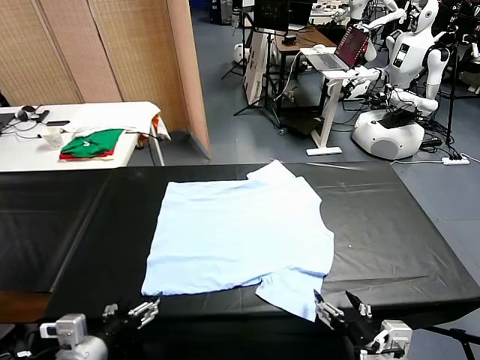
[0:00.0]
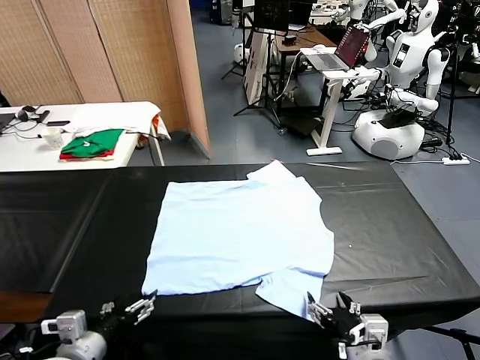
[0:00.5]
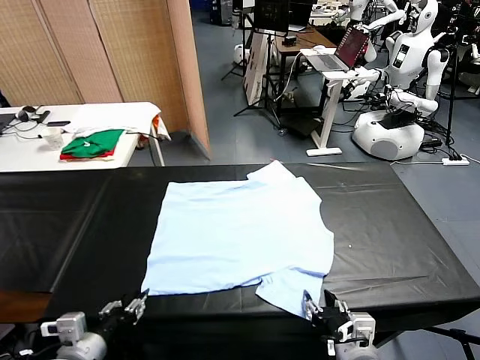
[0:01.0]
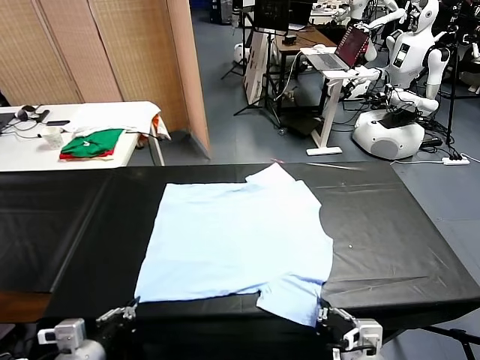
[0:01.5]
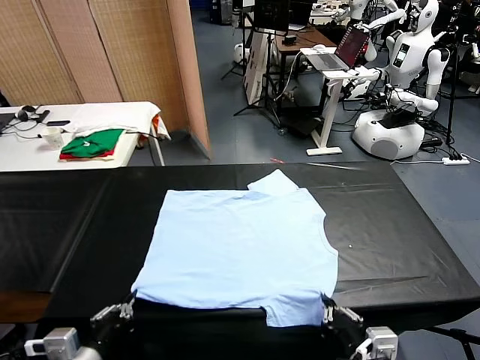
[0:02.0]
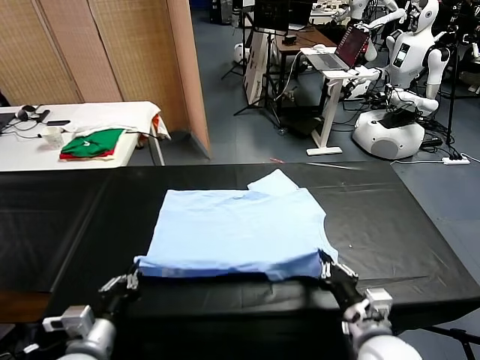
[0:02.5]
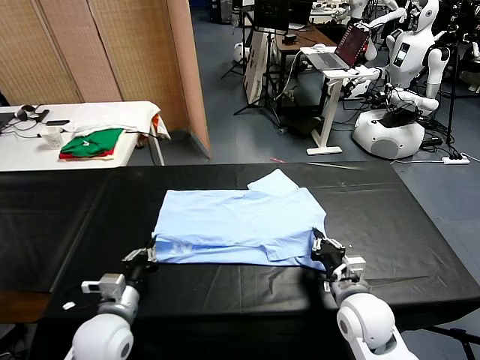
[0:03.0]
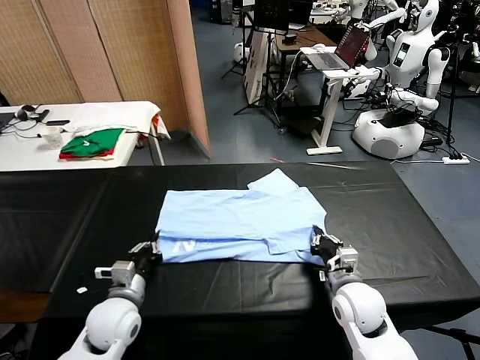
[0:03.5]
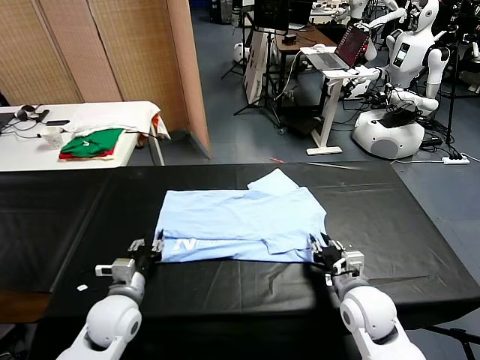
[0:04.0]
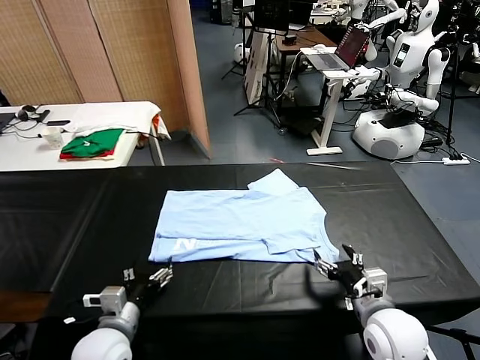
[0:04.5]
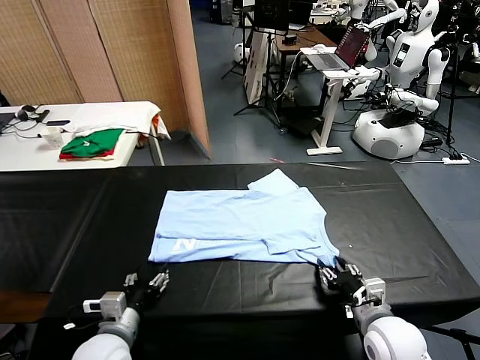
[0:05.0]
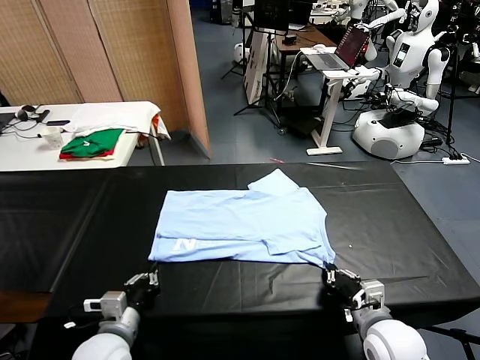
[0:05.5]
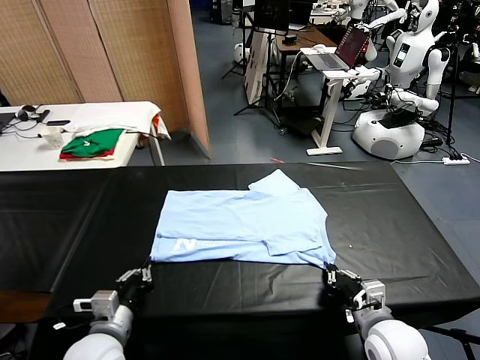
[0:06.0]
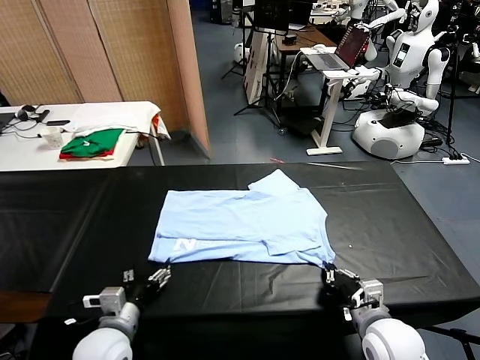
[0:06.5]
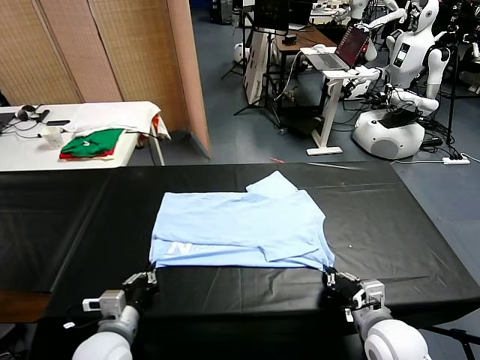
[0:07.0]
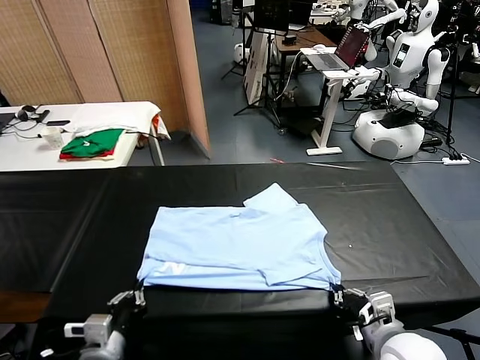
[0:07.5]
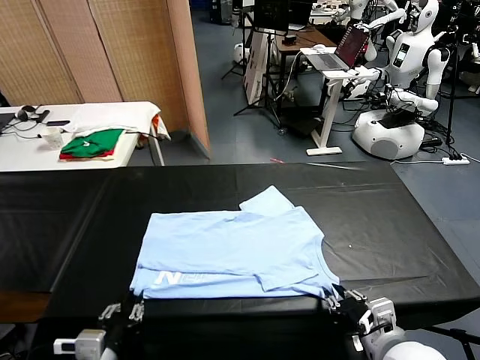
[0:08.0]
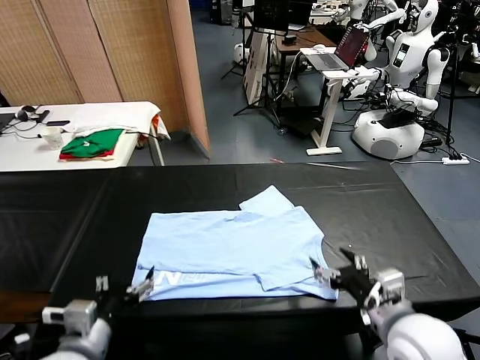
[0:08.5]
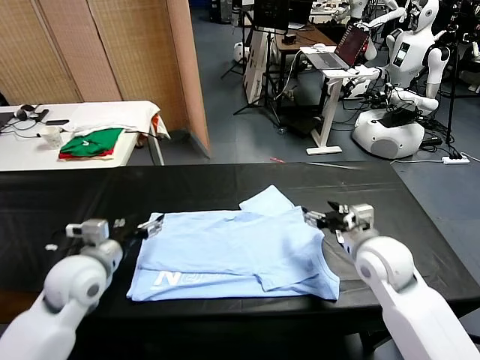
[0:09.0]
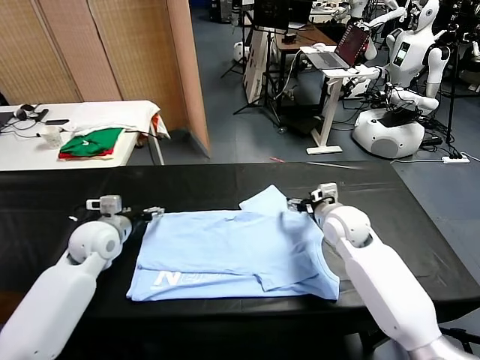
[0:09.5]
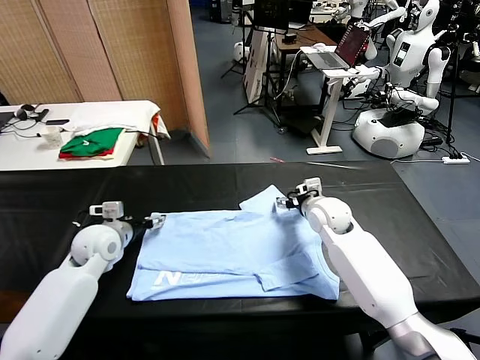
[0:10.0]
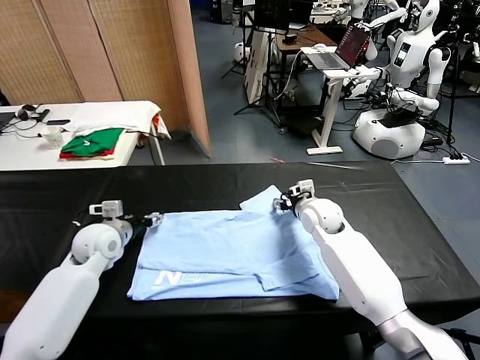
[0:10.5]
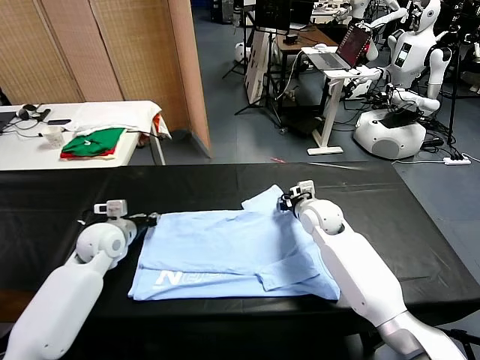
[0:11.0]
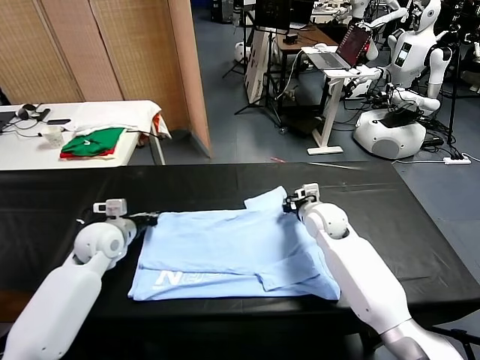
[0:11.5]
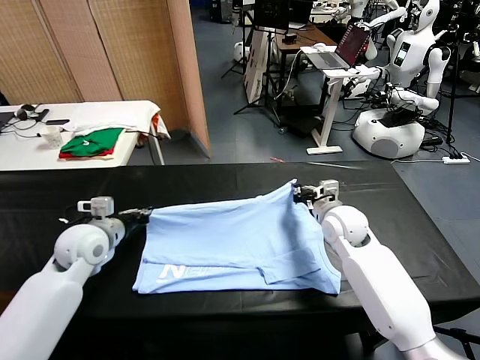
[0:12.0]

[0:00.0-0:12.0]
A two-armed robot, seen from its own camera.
Task of the whole recording: fold and organize the clothes.
Step, 0:00.0 to 0:01.0: use both grippers simultaneously to clamp the lower edge of the clothing fabric.
Step, 0:01.5 to 0:04.0: use both grippers to drag the lower edge of the fabric forward and fold it over the upper edge.
Step, 0:04.5 to 0:08.0: Drag the clothes downward with both gripper.
Step, 0:08.5 to 0:11.0: use both grippers simultaneously to clamp the upper edge of the clothing fabric.
0:02.0 to 0:04.0: The left gripper is displaced forward and downward by some 15 cm, and opens its fingers, while the right gripper moves approximately 10 cm forward and comes back, and opens.
0:04.0 to 0:06.0: The left gripper heads backward, covering roughly 5 cm, and closes. The right gripper closes its fingers.
0:06.0 to 0:08.0: The left gripper shifts approximately 10 cm backward, and opens its fingers. Meanwhile the right gripper travels upward by approximately 10 cm, and opens up.
0:08.0 to 0:10.0: Both grippers travel together forward, approximately 30 cm. The left gripper opens up.
0:10.0 to 0:12.0: The left gripper shifts by roughly 5 cm, and closes up, while the right gripper goes some 10 cm backward, to the right and upward, and closes its fingers.

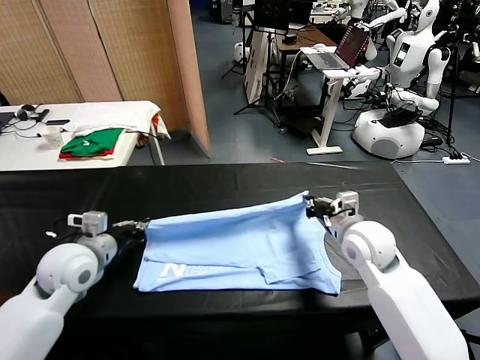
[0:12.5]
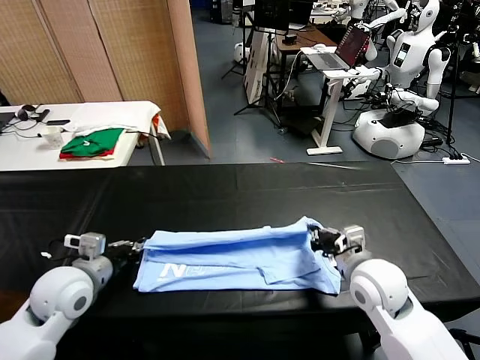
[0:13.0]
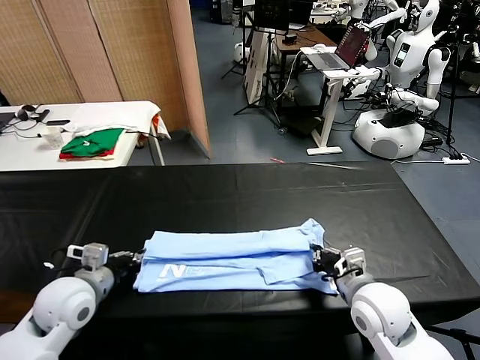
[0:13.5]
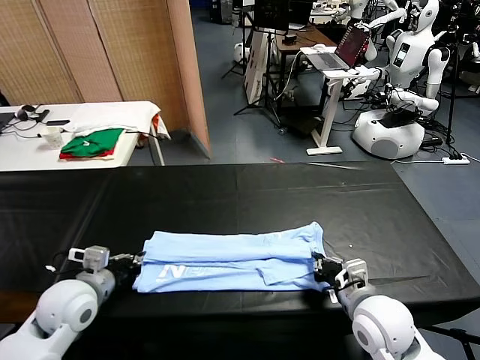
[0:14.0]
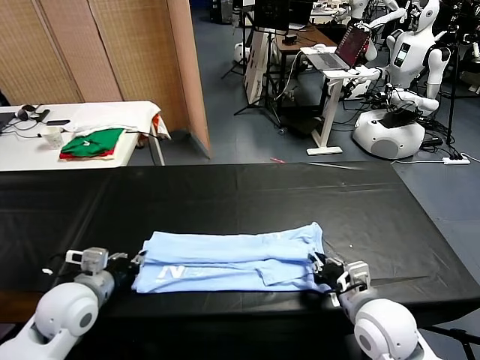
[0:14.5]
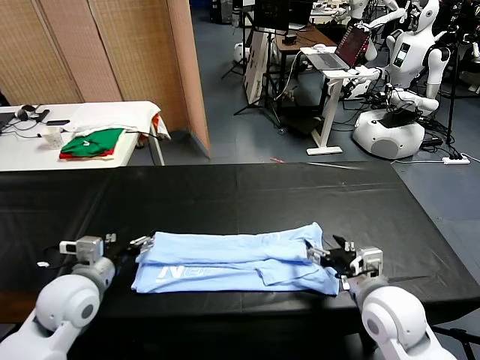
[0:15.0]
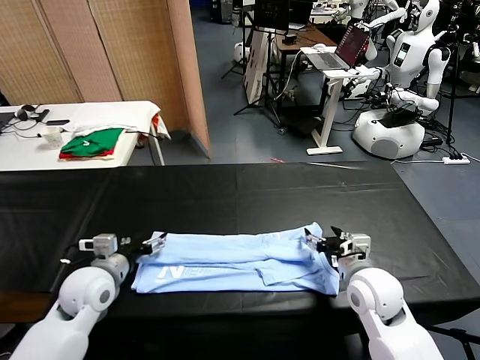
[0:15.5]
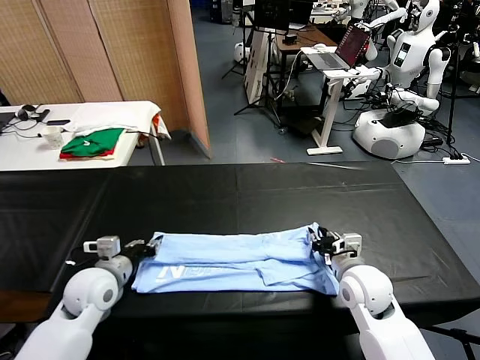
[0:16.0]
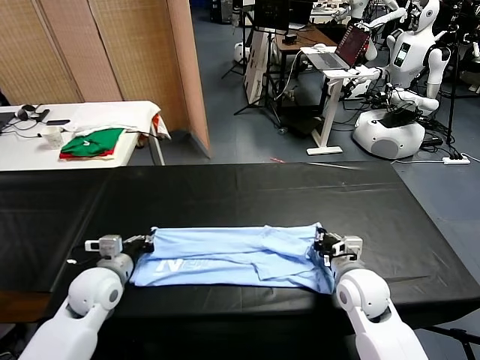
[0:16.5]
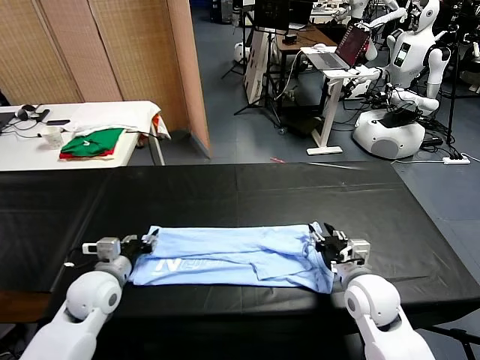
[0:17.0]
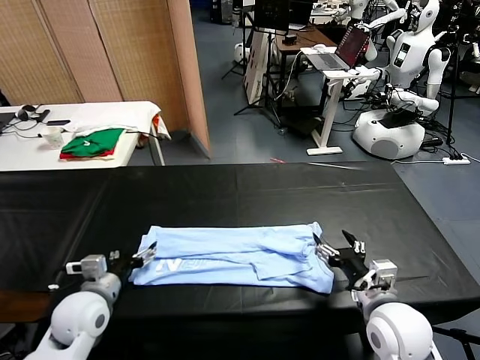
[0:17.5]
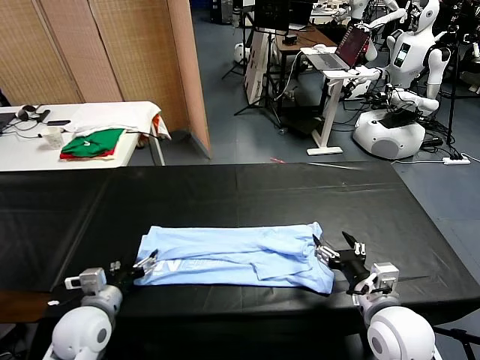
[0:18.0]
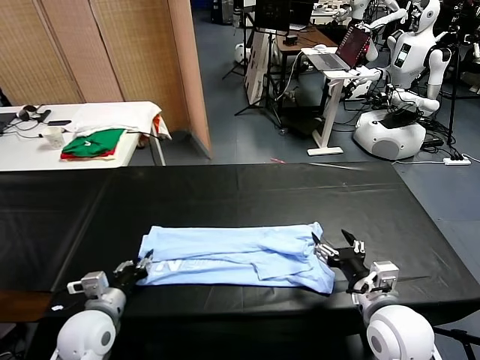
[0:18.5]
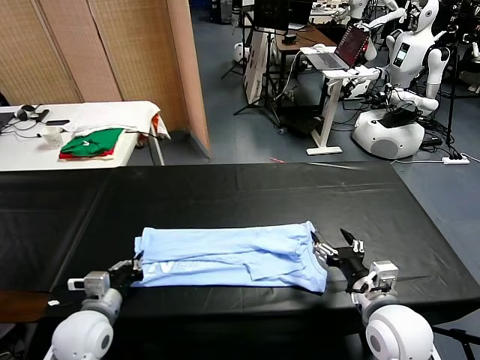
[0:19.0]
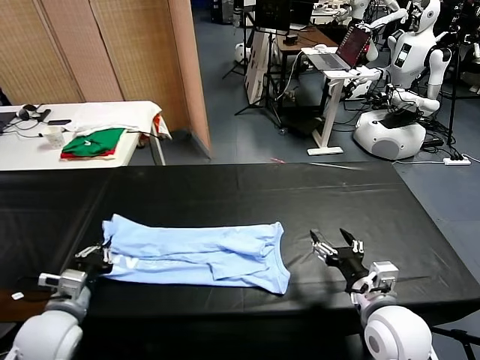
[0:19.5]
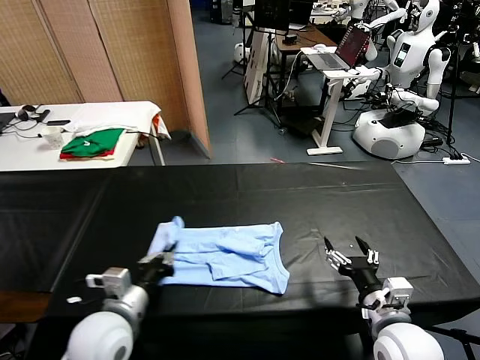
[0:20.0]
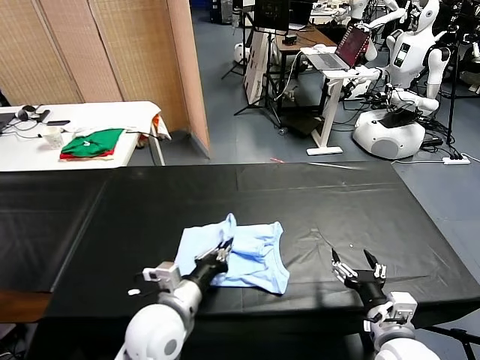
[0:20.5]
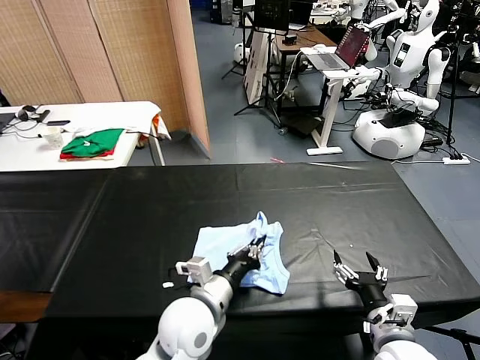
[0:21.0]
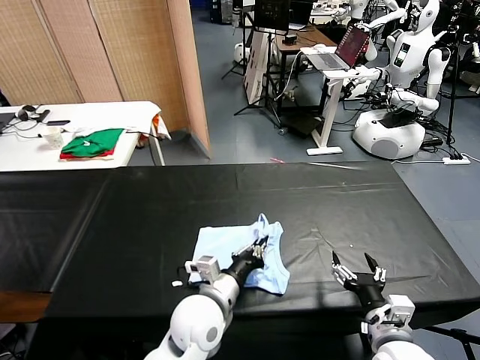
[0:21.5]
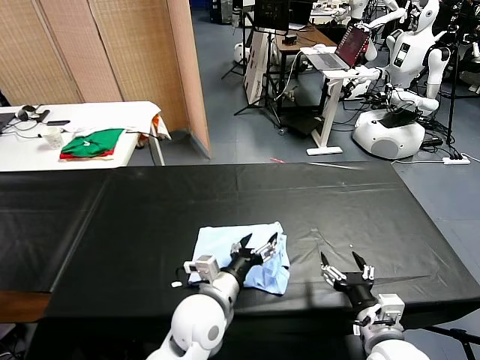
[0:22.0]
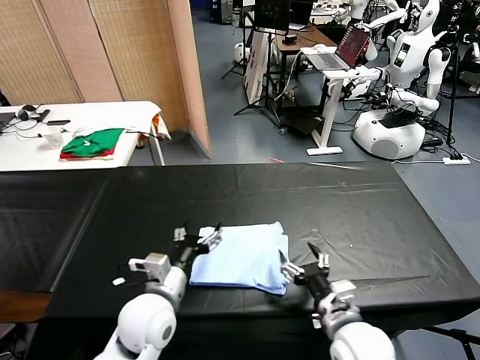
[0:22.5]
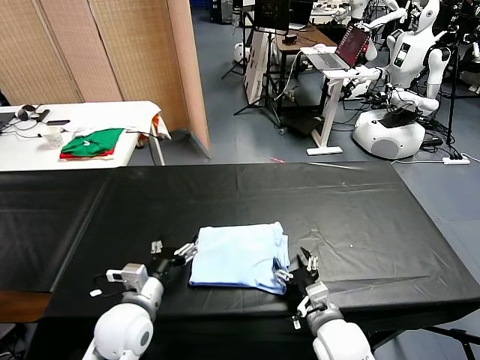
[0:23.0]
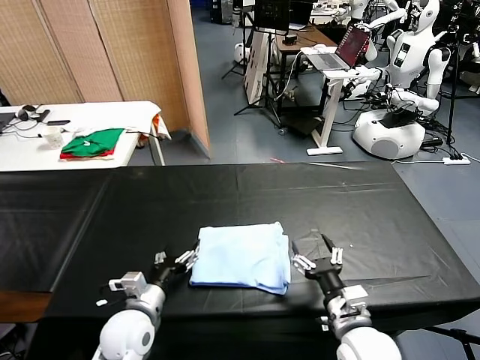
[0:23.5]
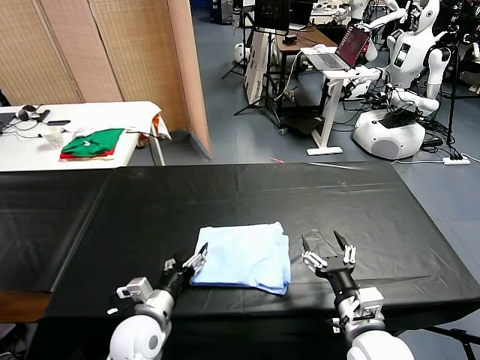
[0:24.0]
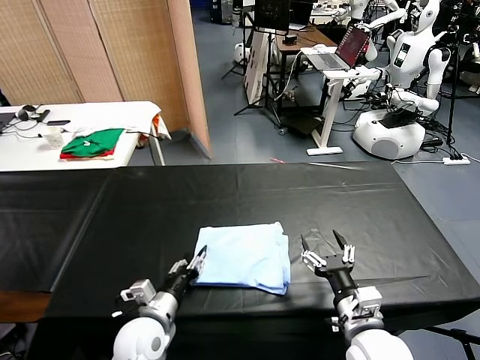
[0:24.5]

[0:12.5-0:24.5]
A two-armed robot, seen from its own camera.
Task of the whole recording: fold and organize the clothes.
Step, 0:12.5 to 0:14.5: use both grippers to drag the upper edge of the fabric backward and fold it over the lower edge.
Step, 0:15.0 to 0:18.5: use the left gripper to clamp the left edge of the fabric.
Step, 0:19.0 to 0:21.5: use the left gripper to drag the left edge of the fabric to the left and folds it over the right edge.
0:12.5 to 0:14.5: The left gripper travels backward by some 5 cm, and opens. The right gripper is displaced backward by approximately 10 cm, and opens its fingers.
0:14.5 to 0:16.5: Both grippers move forward and downward, some 10 cm. The right gripper closes its fingers, while the left gripper closes up.
0:16.5 to 0:18.5: The right gripper travels backward and upward by roughly 10 cm, and opens up. The left gripper shifts about 10 cm backward, and opens, then closes once more.
0:18.5 to 0:20.5: The left gripper moves to the right, approximately 15 cm. The right gripper moves approximately 5 cm.
0:20.5 to 0:22.5: The right gripper travels to the left by some 10 cm. The left gripper travels to the right and back again, approximately 5 cm each way, and opens up.
0:22.5 to 0:24.5: The left gripper is displaced downward by roughly 10 cm, and closes; the right gripper moves some 5 cm.

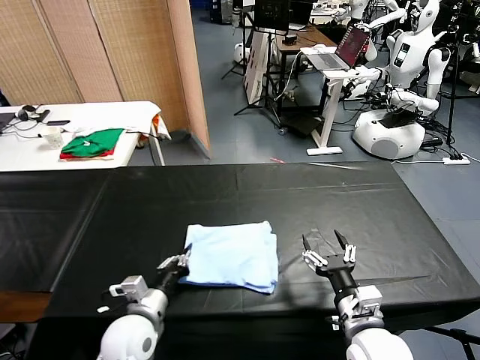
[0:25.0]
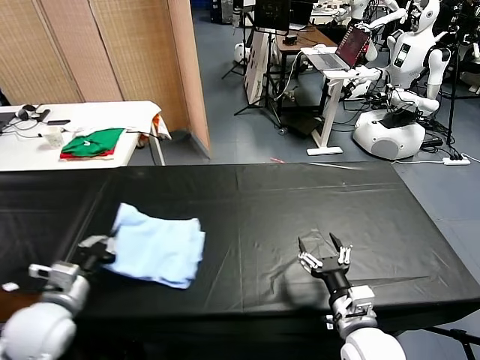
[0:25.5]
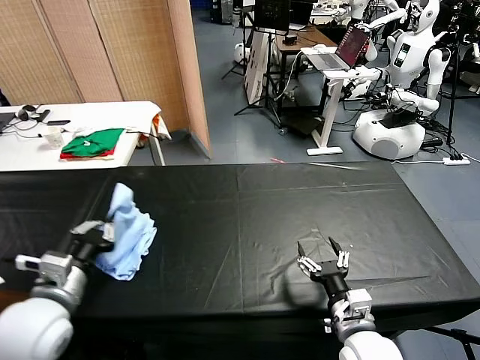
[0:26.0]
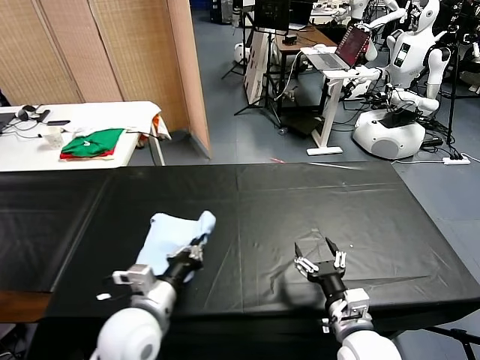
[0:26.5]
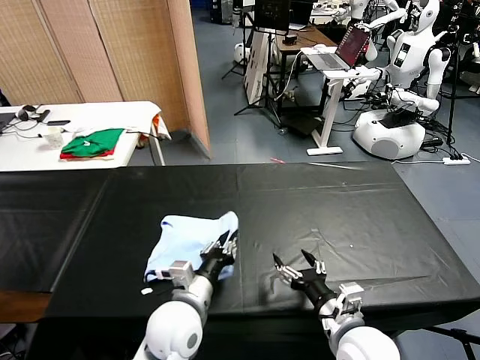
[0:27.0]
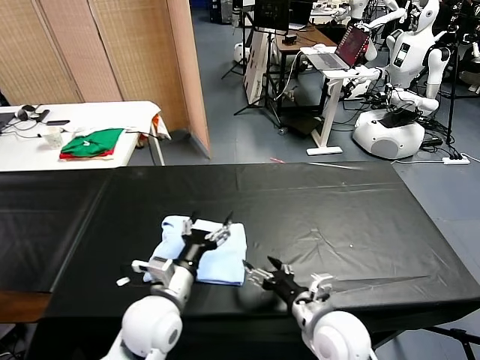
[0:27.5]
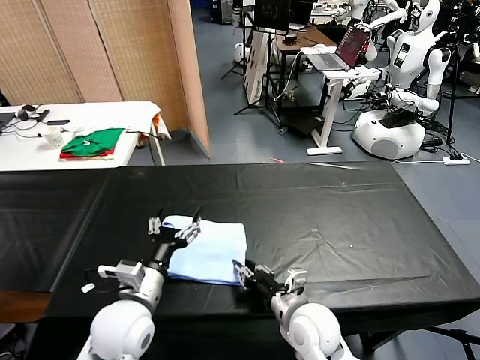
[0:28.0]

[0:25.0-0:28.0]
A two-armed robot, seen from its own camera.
Task of the whole recording: fold and organize the clothes.
Step, 0:25.0 to 0:27.0: Flip the folded clothes over with left gripper.
0:25.0 to 0:26.5: The left gripper moves upward, about 10 cm, and reaches roughly 10 cm to the left, then returns.
0:26.5 to 0:28.0: The left gripper travels to the right and back again, some 5 cm each way, and opens up, while the right gripper travels to the left and forward by approximately 10 cm, and closes up.
